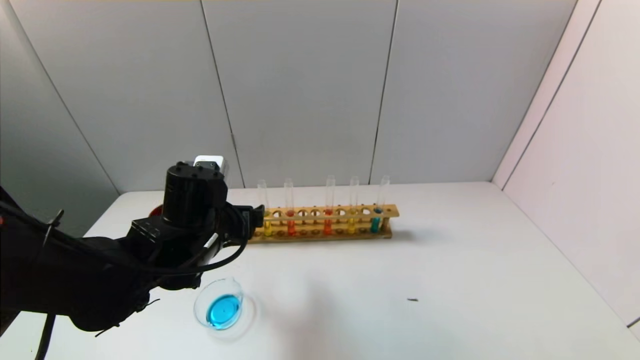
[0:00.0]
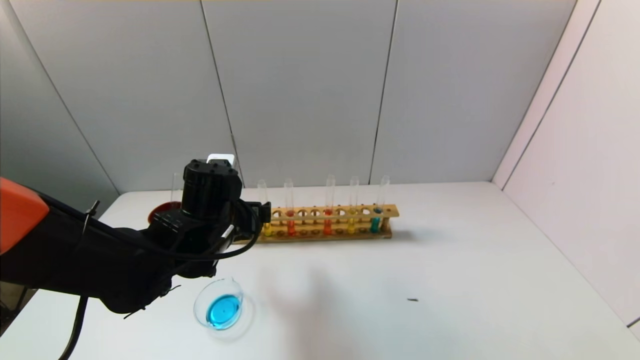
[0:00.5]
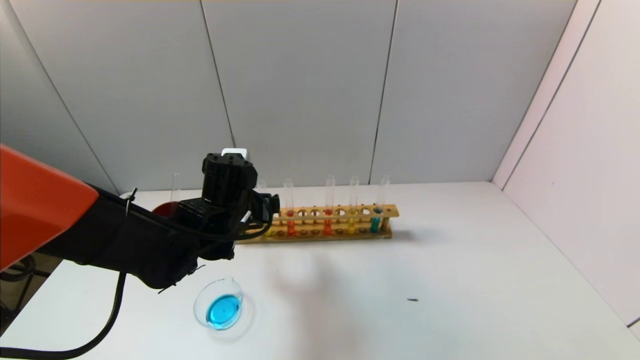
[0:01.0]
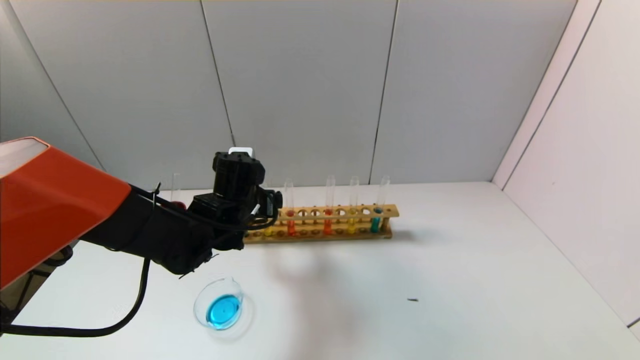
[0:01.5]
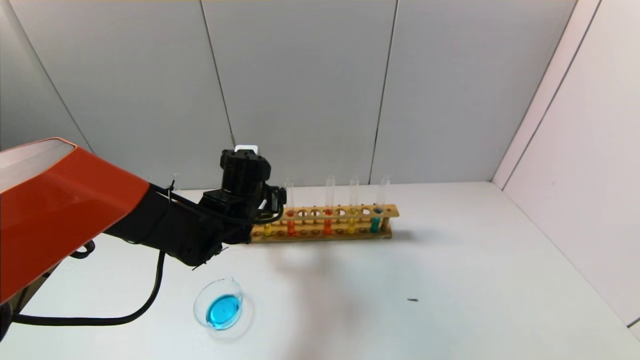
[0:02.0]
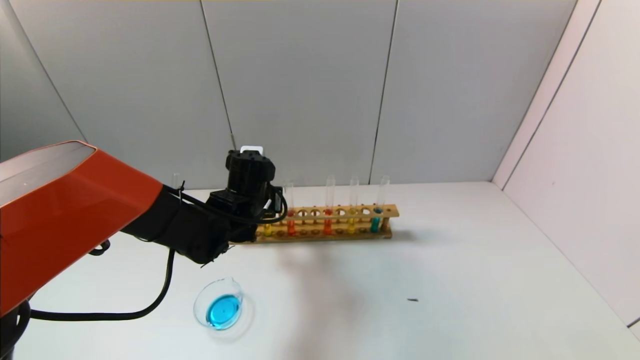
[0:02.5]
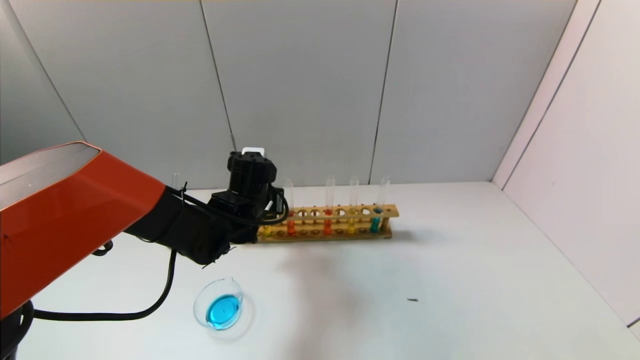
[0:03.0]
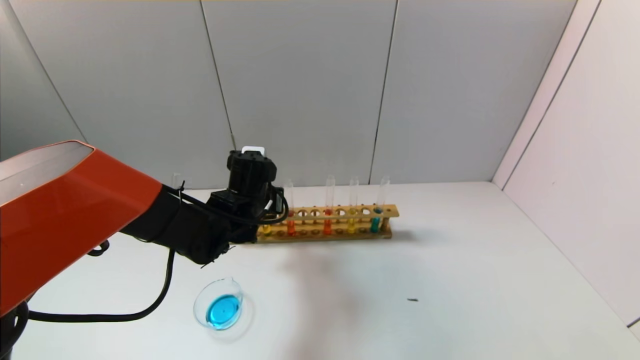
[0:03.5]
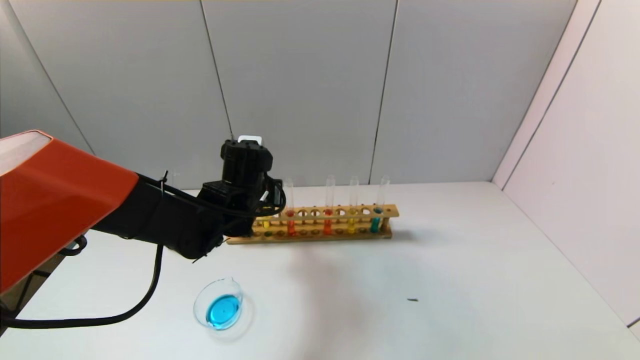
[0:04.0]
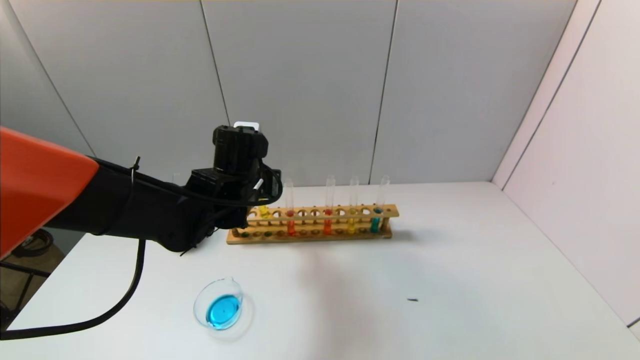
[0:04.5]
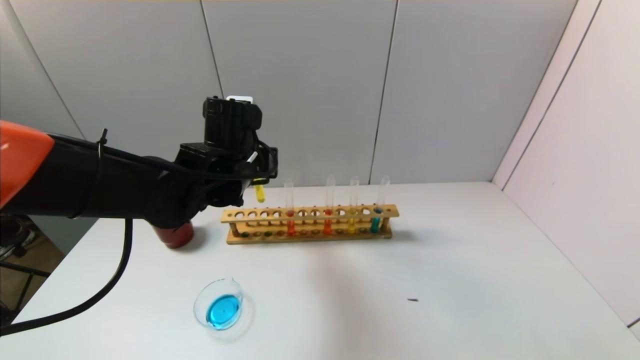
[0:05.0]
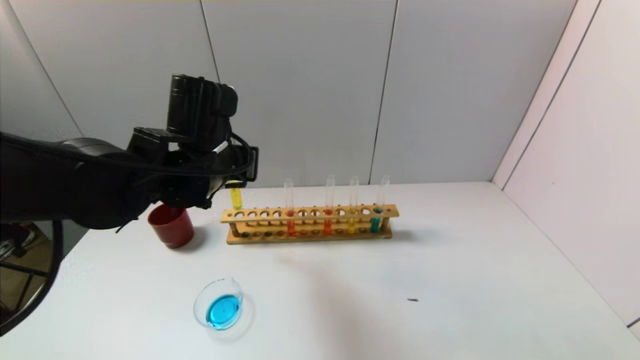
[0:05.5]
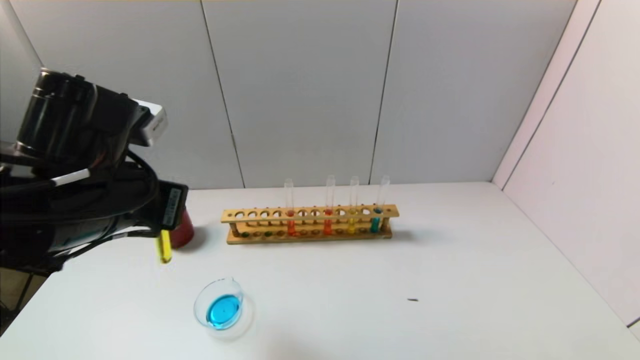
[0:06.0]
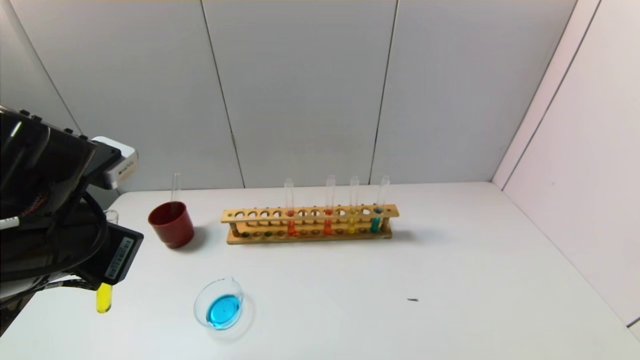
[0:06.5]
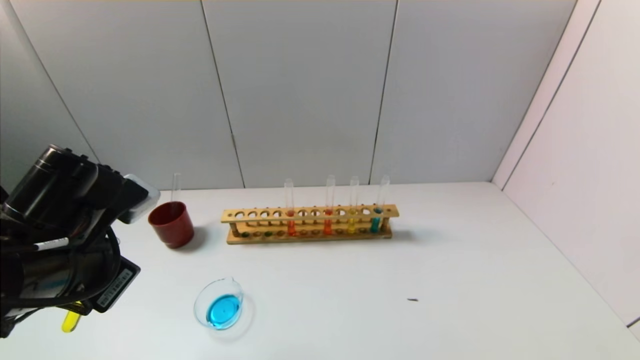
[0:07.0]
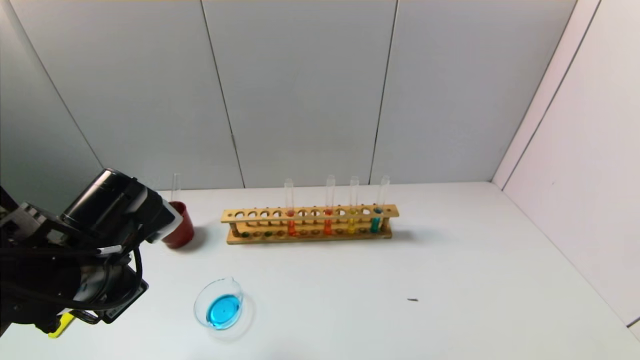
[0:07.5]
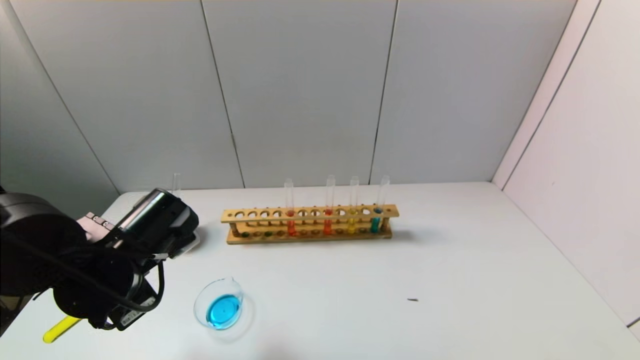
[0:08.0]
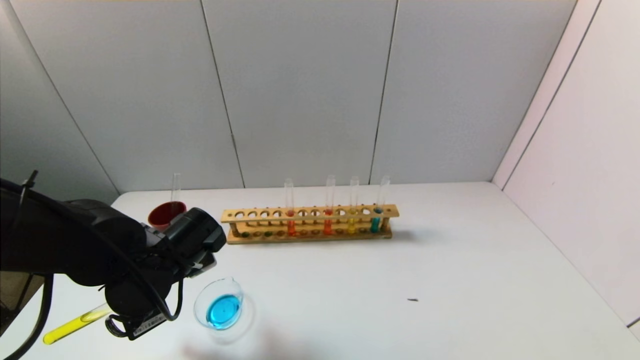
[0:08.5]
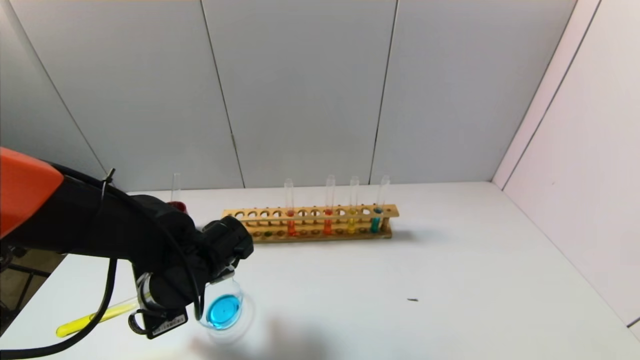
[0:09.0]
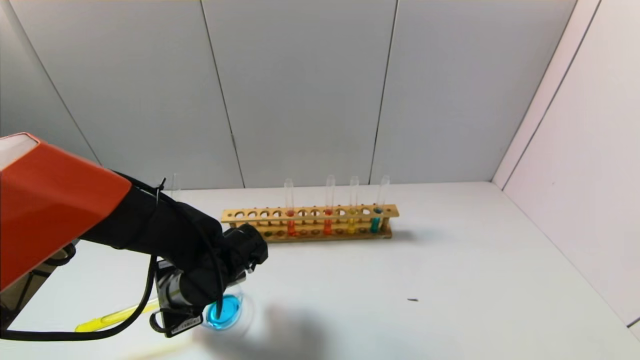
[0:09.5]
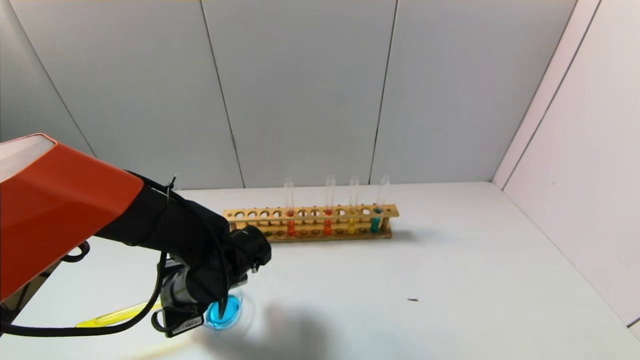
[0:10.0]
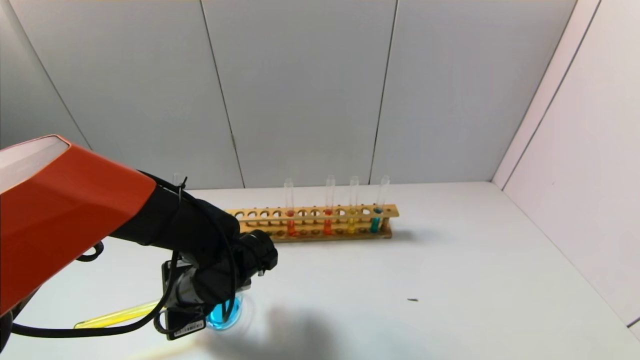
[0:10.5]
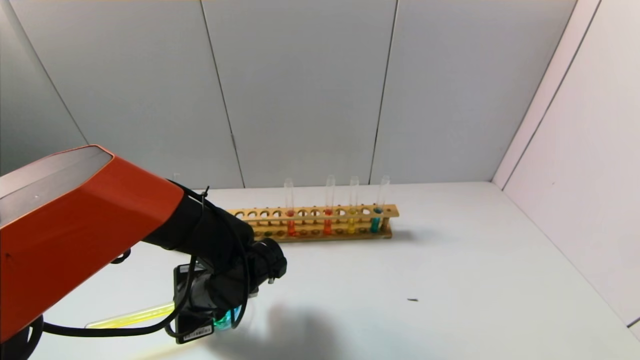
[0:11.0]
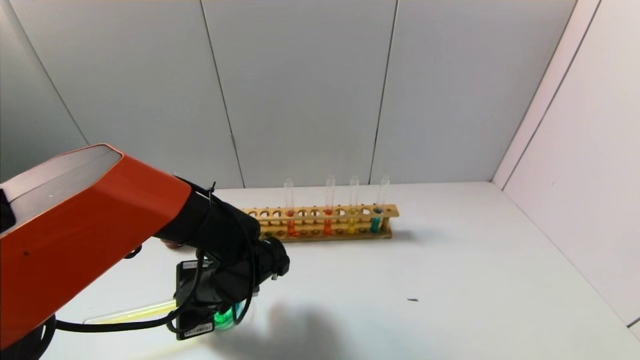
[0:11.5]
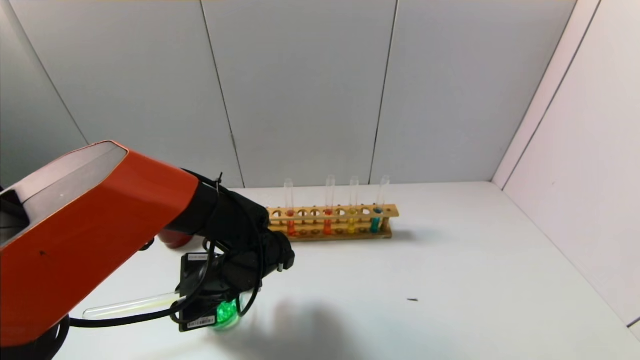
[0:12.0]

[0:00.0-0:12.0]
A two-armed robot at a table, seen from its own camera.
Task of the whole recording: pick up the test tube with yellow pigment and the test tube with blue pigment by grippers and pour them into the beaker.
Step, 0:00.0 to 0:03.0: Grasp the yellow reagent with the left gripper.
0:00.0 to 0:02.0: The left gripper travels forward by roughly 10 cm.
0:02.0 to 0:04.0: The left gripper closes up.
0:04.0 to 0:06.0: The left gripper travels backward, upward and to the left by about 20 cm.
0:06.0 to 0:08.0: The left gripper shifts some 10 cm downward.
0:08.0 to 0:10.0: The left gripper heads downward and to the right, covering some 10 cm.
0:10.0 to 0:12.0: The grippers move only a little.

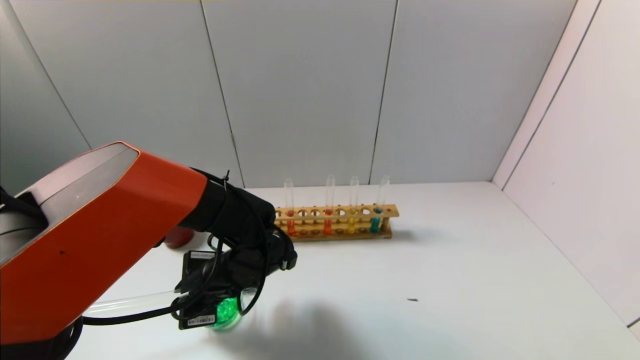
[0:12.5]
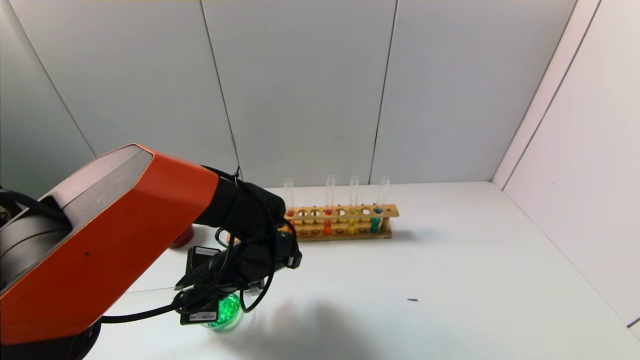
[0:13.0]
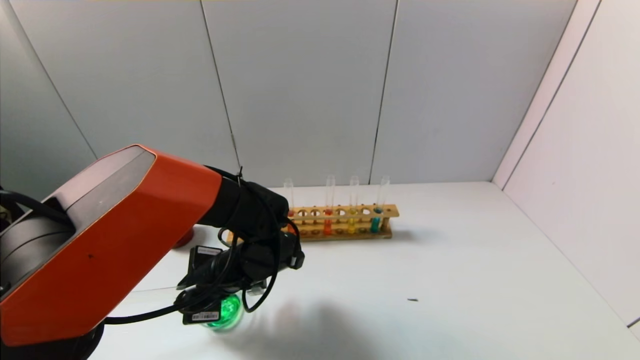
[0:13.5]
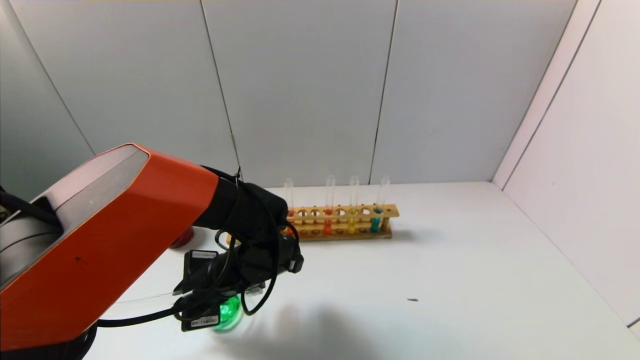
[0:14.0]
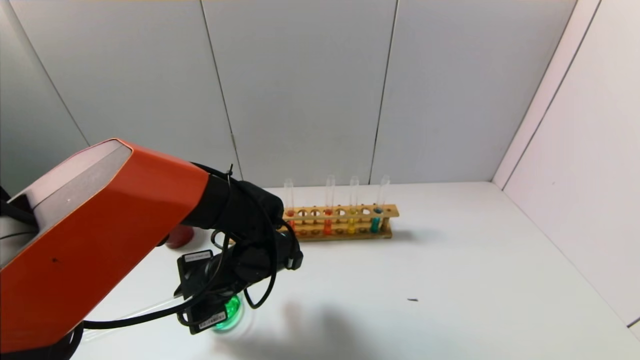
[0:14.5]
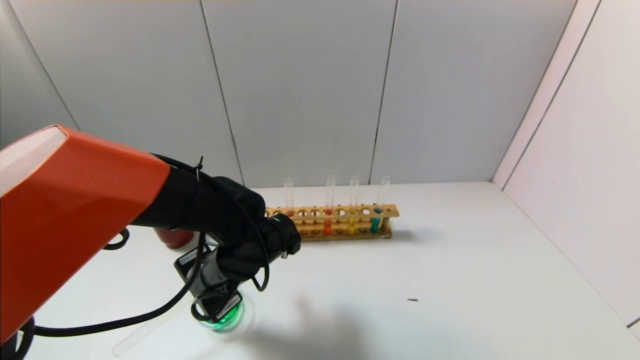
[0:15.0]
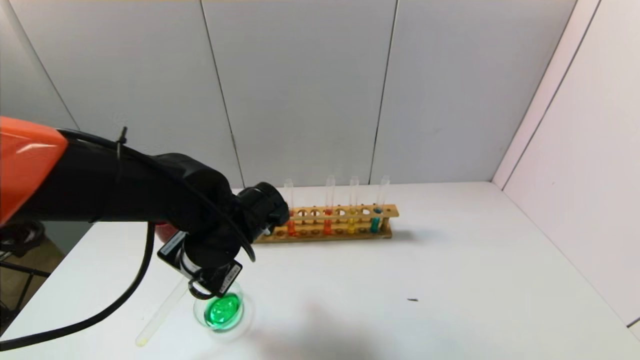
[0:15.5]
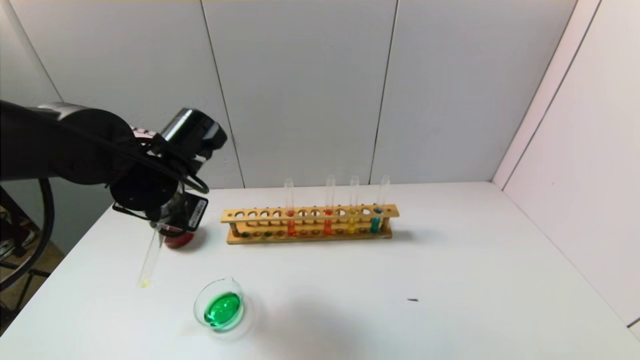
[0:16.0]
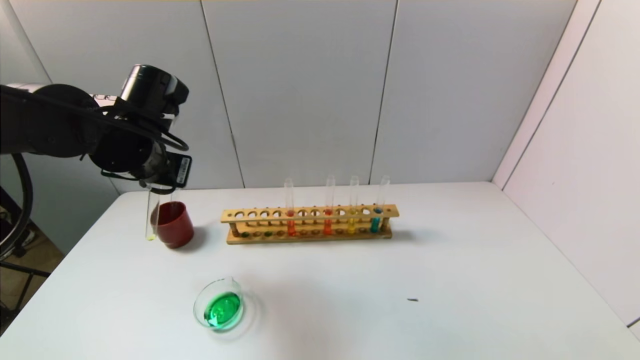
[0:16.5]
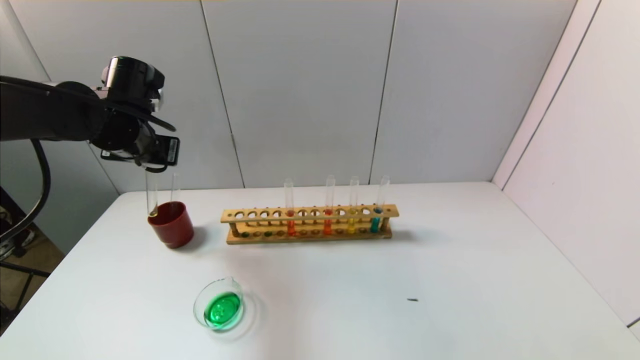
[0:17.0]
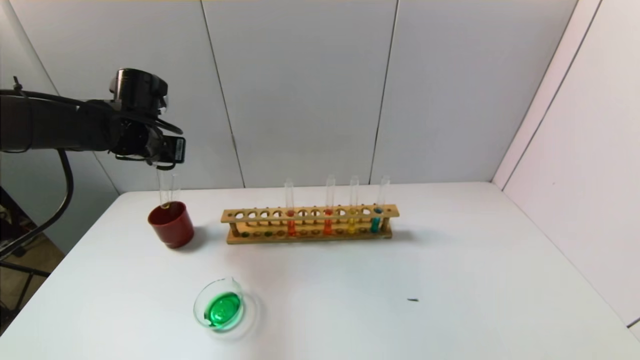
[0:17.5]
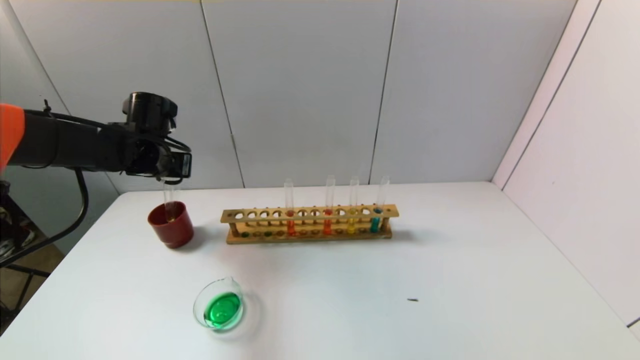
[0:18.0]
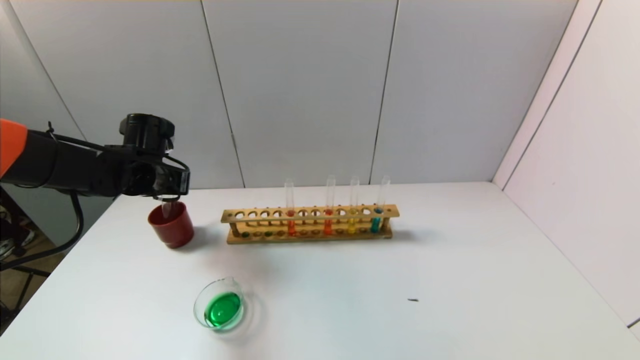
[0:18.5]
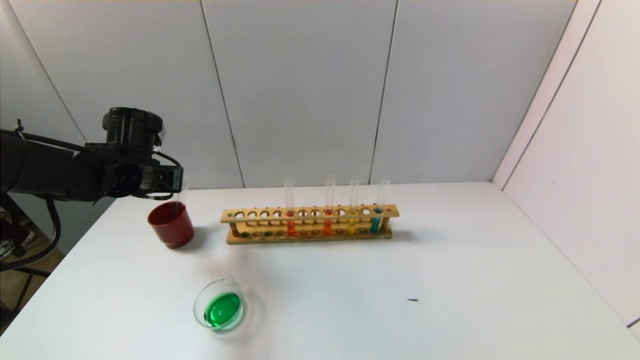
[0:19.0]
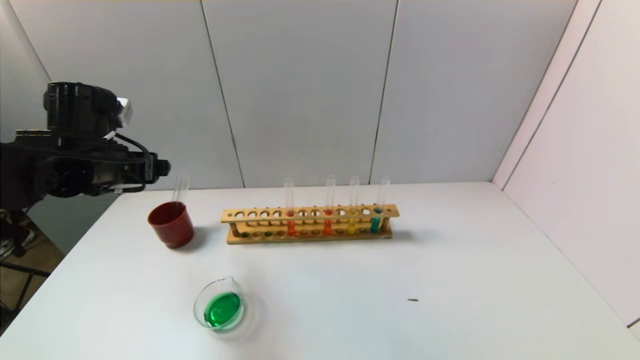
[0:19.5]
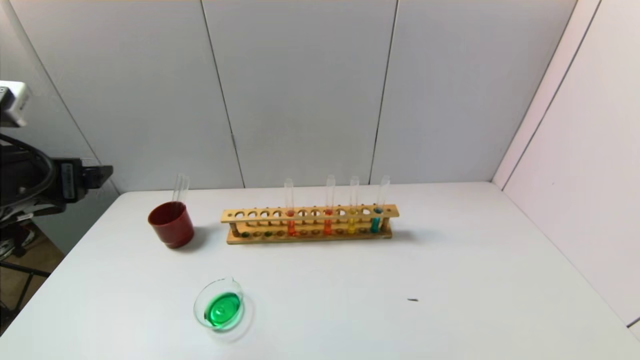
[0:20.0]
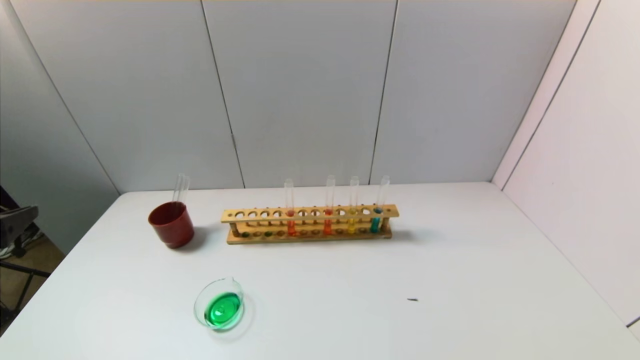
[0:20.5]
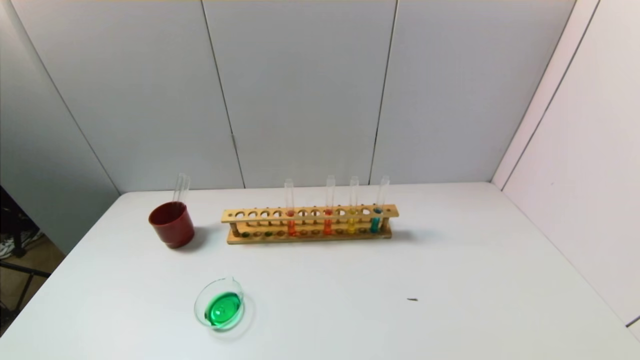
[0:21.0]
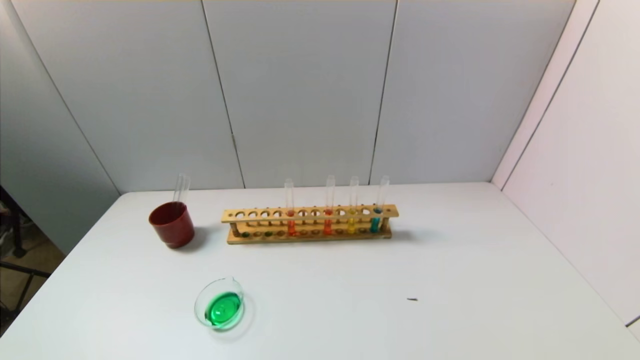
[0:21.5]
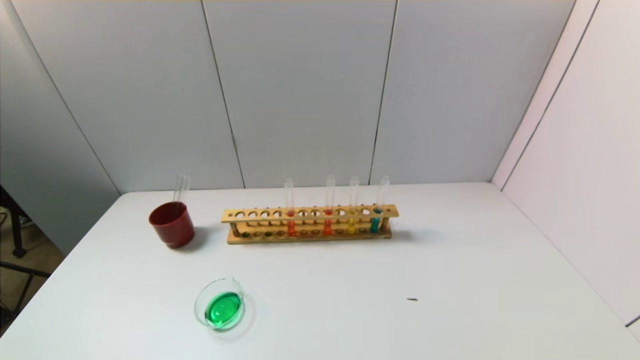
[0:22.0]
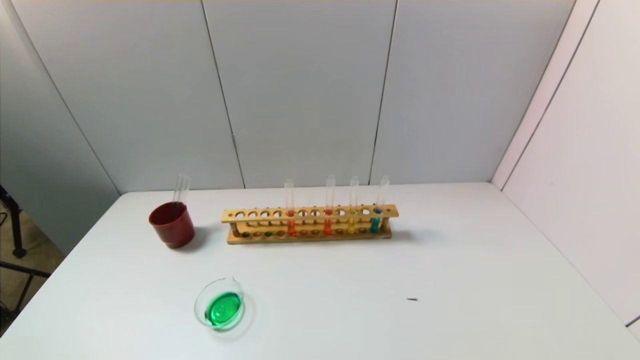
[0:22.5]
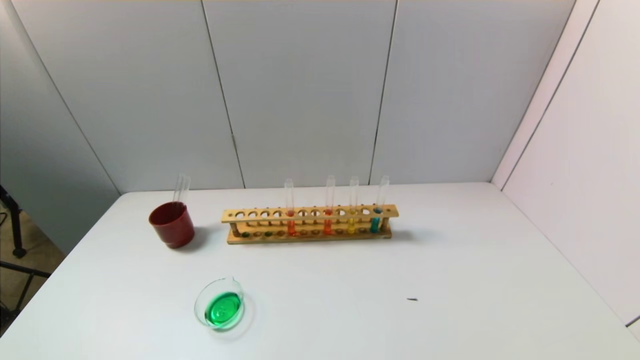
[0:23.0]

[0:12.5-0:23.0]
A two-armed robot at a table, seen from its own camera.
Task of the whole recording: pick up the test tube with yellow pigment and the test tube with blue pigment by grippers and pour them into the beaker.
Step, 0:13.5 to 0:19.0: Place the test tube into the brown cup with the left gripper.
0:12.5 to 0:14.5: There are only small adjustments of the grippers.
0:14.5 to 0:16.5: The left gripper is displaced upward and to the left by roughly 20 cm.
0:16.5 to 0:19.0: The left gripper goes roughly 10 cm downward and to the left, and opens its fingers.
0:19.0 to 0:21.0: The left gripper heads backward, covering approximately 35 cm.
